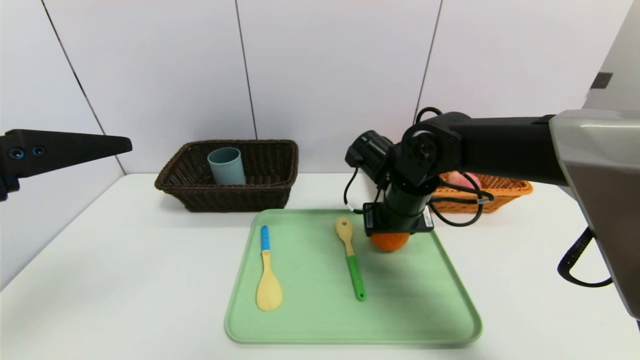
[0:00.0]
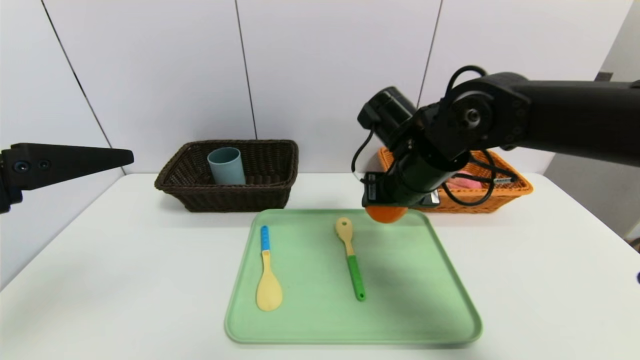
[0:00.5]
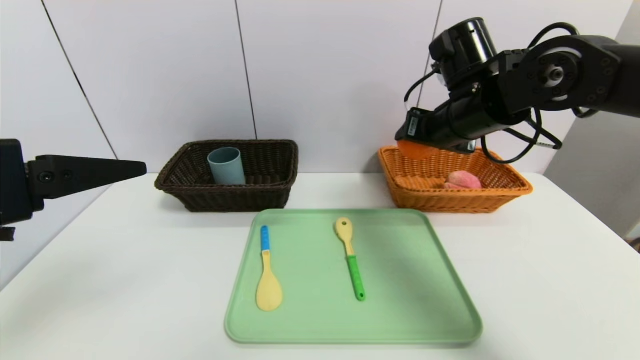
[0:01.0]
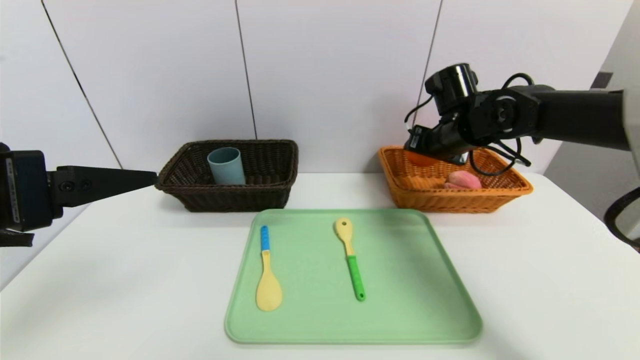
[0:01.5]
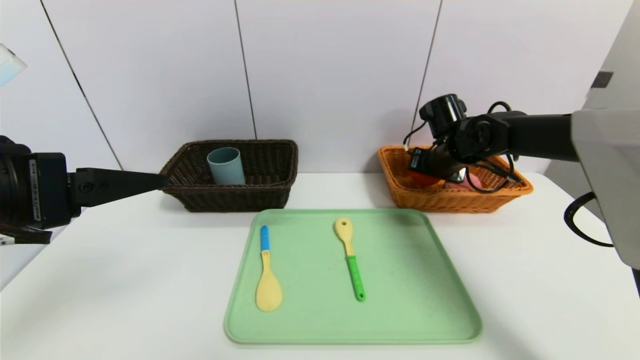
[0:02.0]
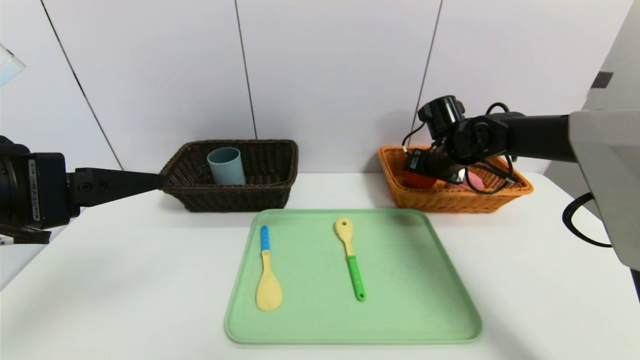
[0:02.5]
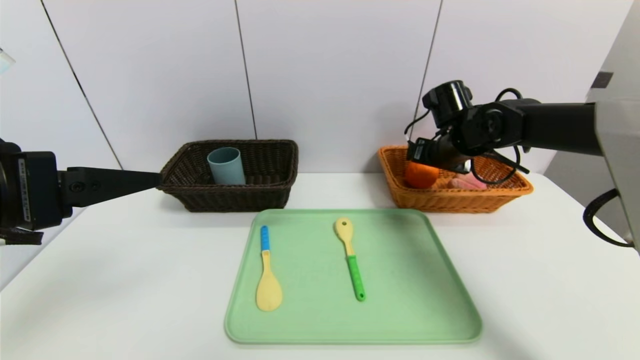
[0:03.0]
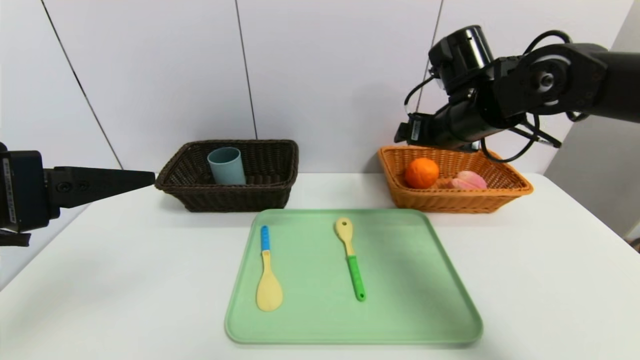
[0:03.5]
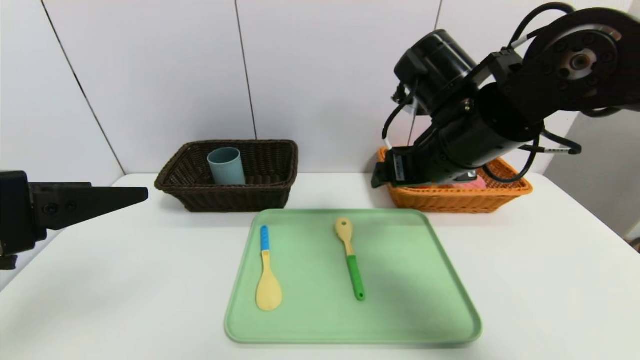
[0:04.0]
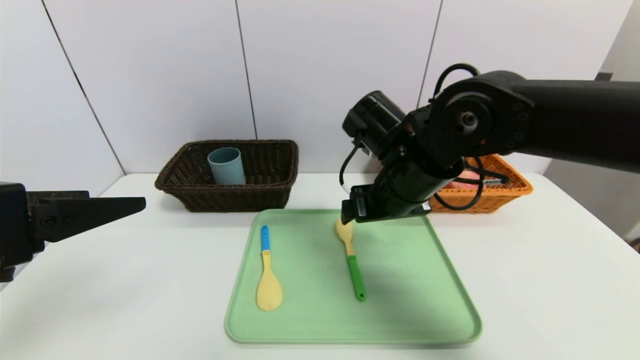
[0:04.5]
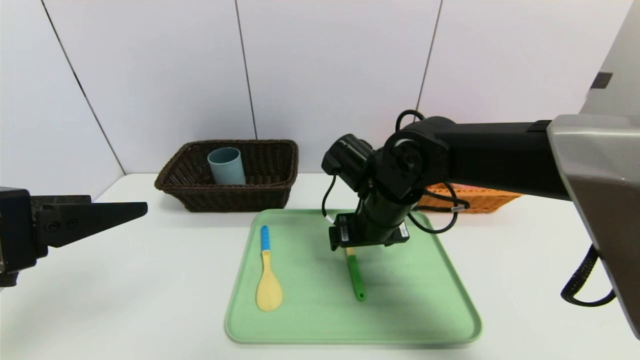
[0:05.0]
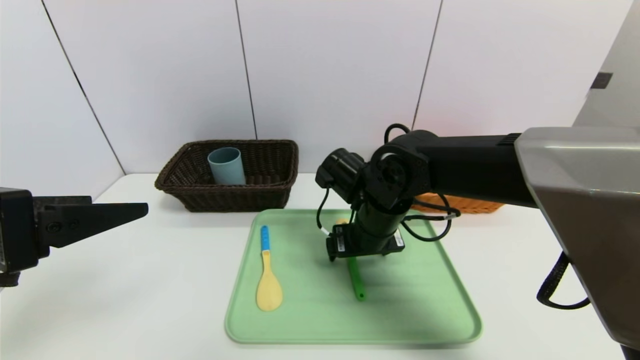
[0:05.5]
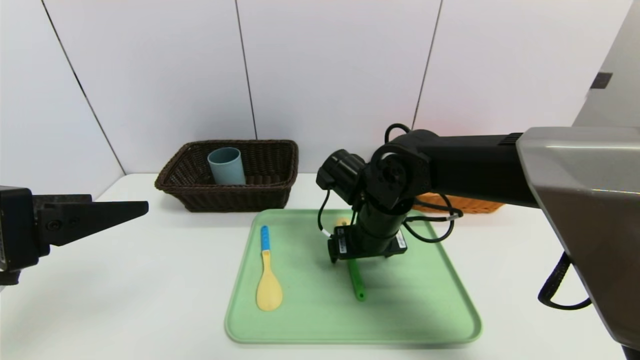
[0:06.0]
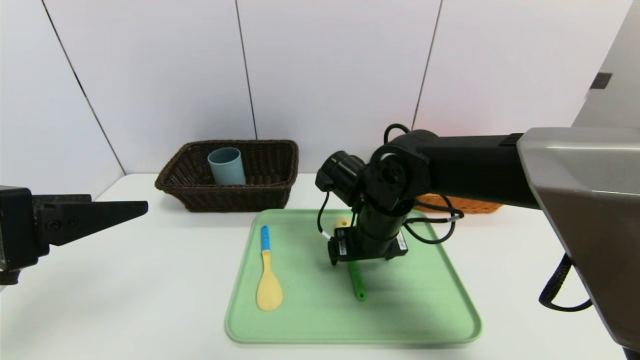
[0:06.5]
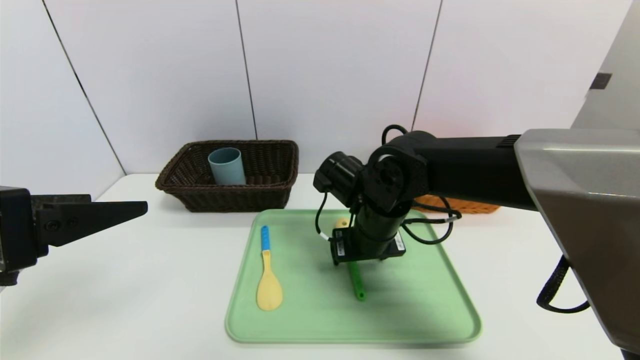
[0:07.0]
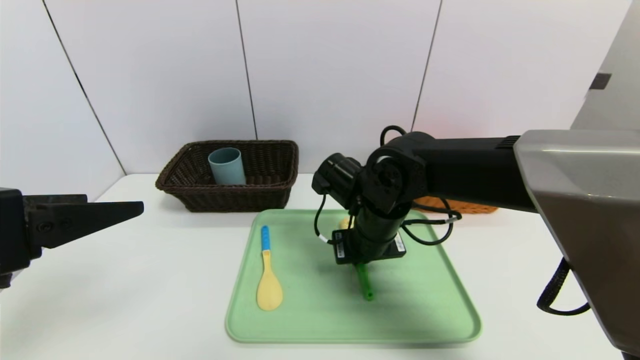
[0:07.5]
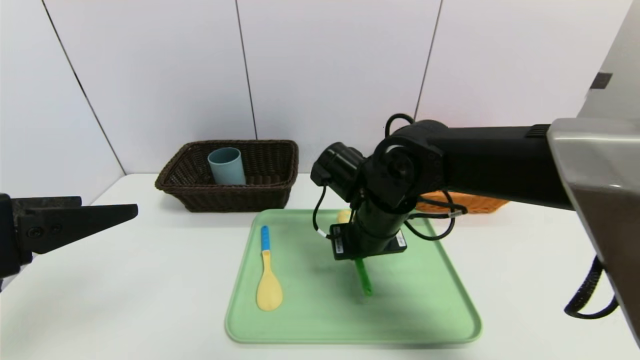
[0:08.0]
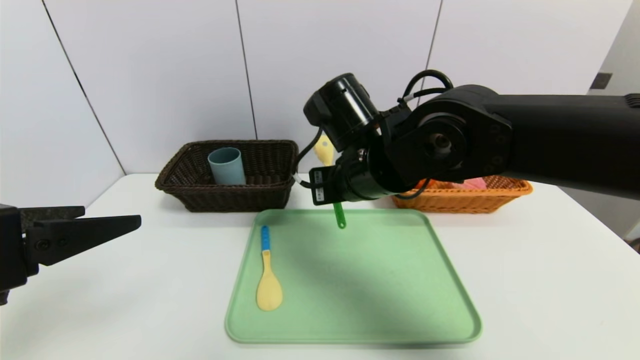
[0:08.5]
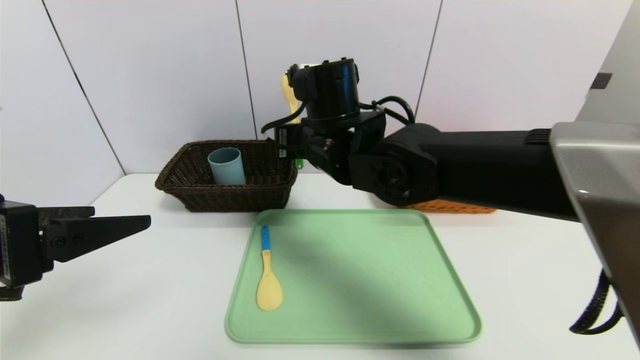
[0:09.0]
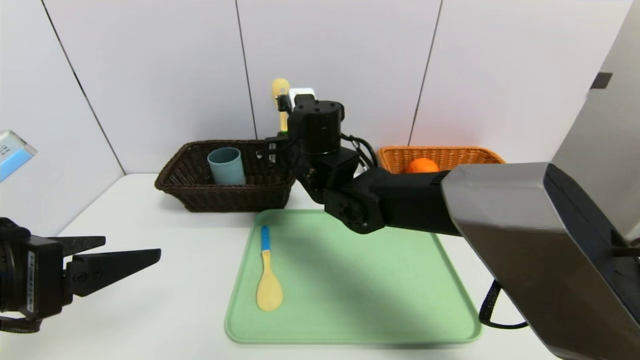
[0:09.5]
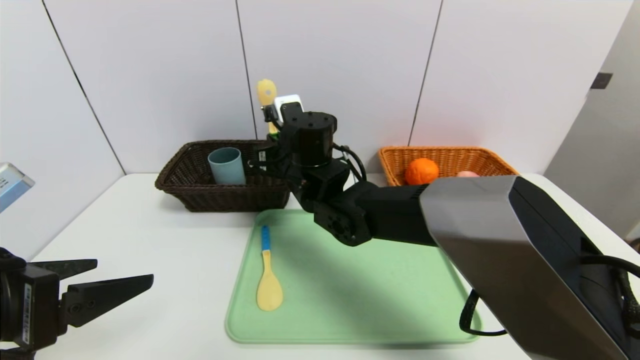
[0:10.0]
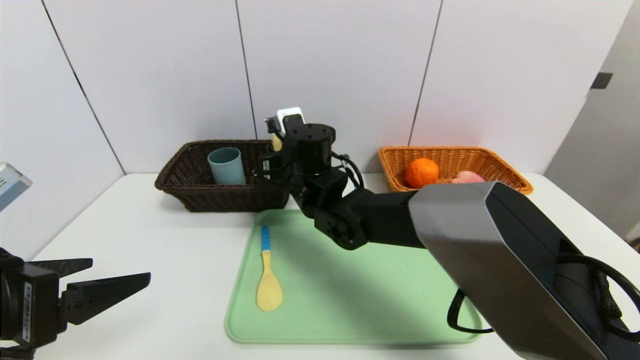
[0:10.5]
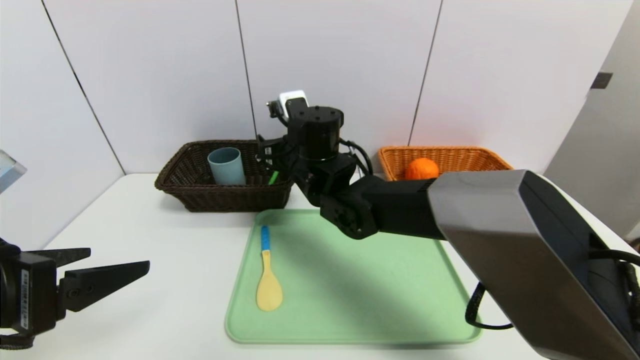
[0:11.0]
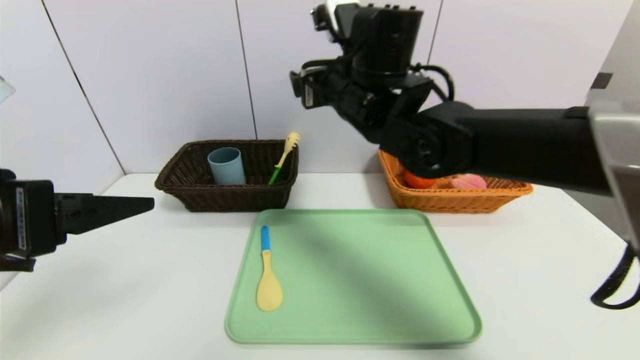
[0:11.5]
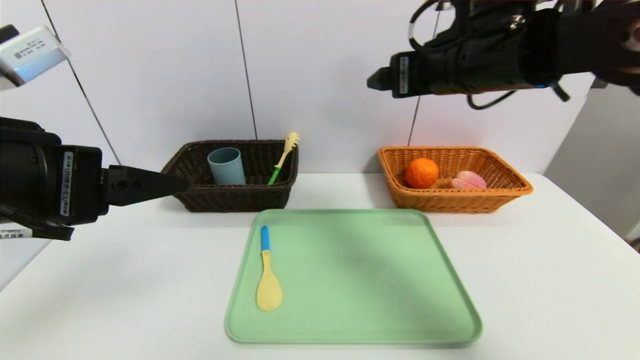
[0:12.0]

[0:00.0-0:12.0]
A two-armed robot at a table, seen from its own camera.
Task of the whole recording: place the food in the right basket with the right gripper, and place the non food items in the left basket with the left gripper.
Step, 0:00.0 to 0:03.0: Grasp the orange and put it in the right basket.
Step, 0:03.5 to 0:11.0: Grasp the back scratcher and put it in the left basket.
0:00.0 to 0:02.0: The right gripper travels to the right and forward by approximately 15 cm.
0:02.0 to 0:04.0: The right gripper is displaced backward, upward and to the left by some 20 cm.
0:04.0 to 0:06.0: The right gripper goes about 15 cm downward and to the left.
0:06.0 to 0:08.0: The right gripper closes its fingers.
0:08.0 to 0:10.0: The left gripper travels downward by some 5 cm. Meanwhile the right gripper is displaced to the left and forward by some 10 cm.
0:10.0 to 0:12.0: The left gripper travels upward by roughly 10 cm. Meanwhile the right gripper travels to the right and upward by about 25 cm, and opens up.

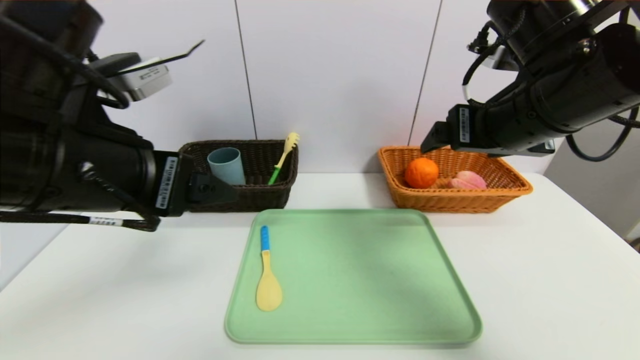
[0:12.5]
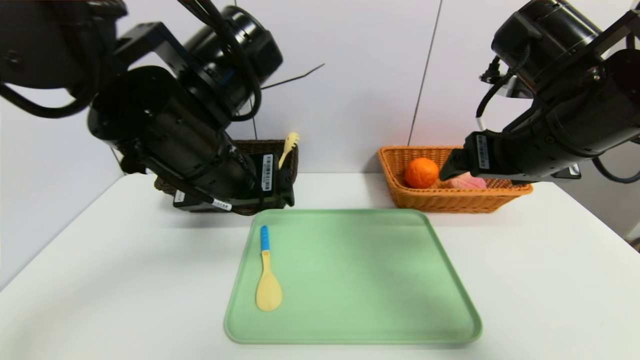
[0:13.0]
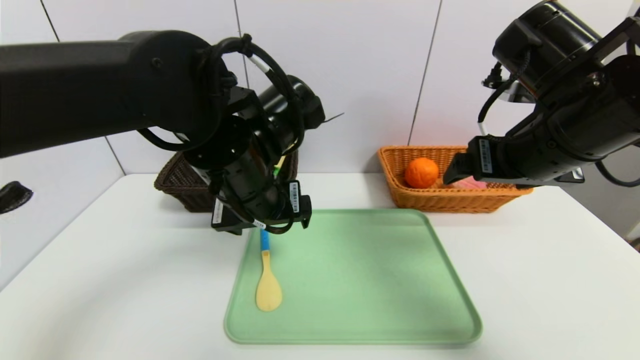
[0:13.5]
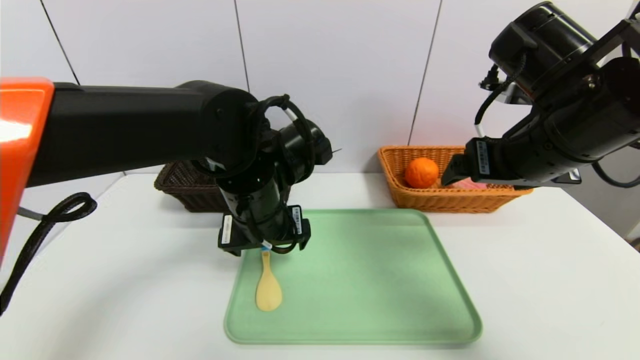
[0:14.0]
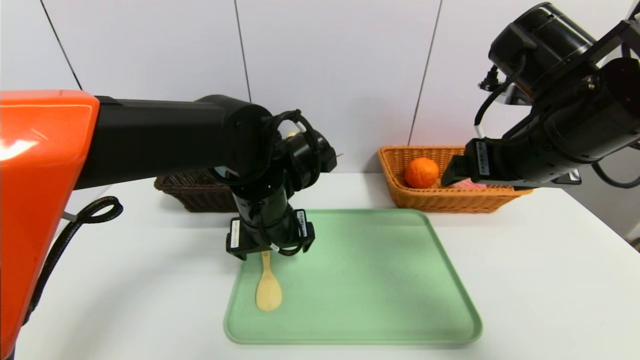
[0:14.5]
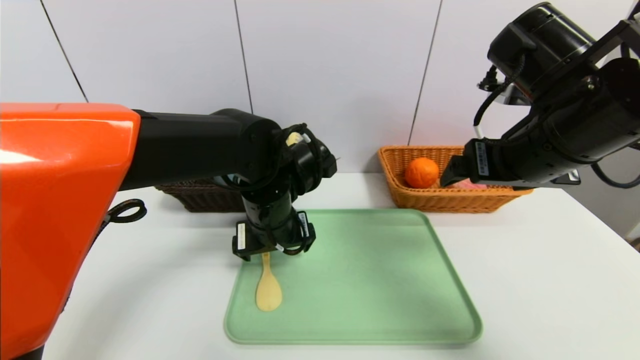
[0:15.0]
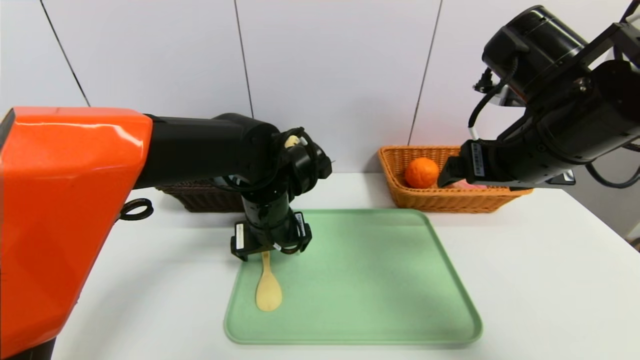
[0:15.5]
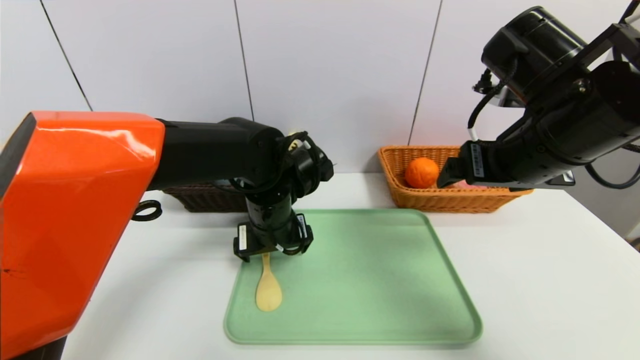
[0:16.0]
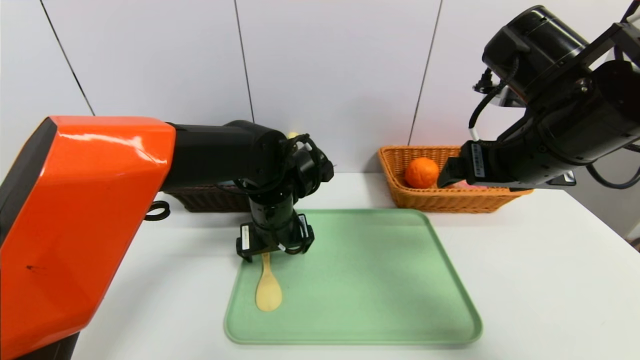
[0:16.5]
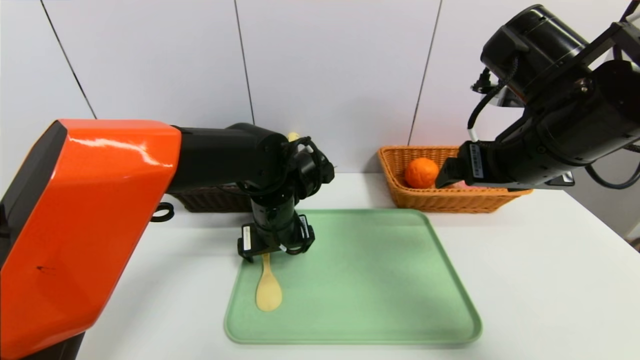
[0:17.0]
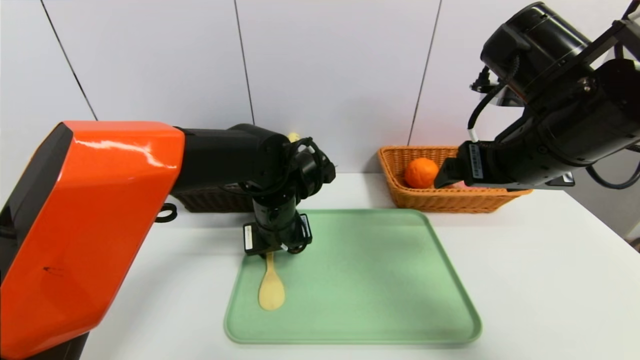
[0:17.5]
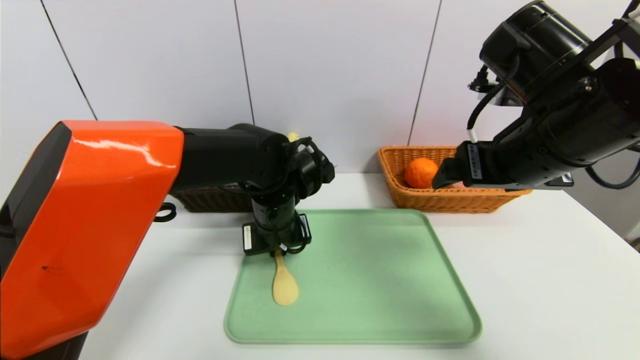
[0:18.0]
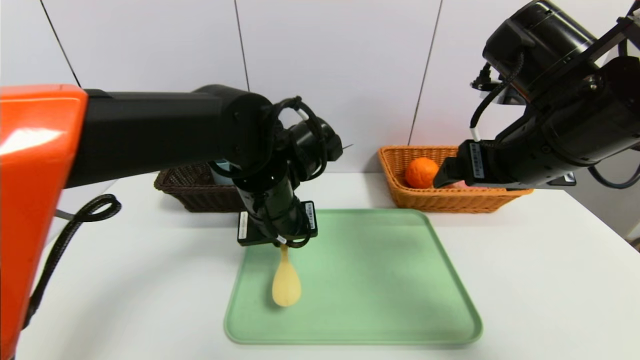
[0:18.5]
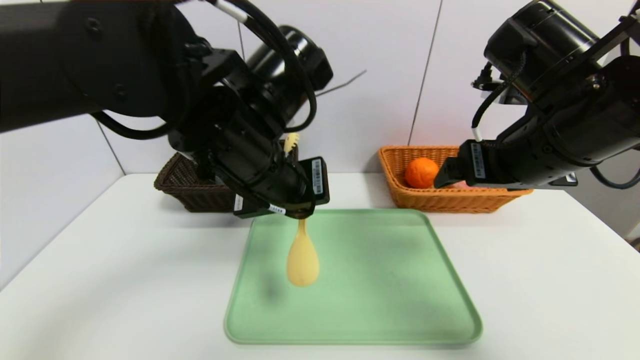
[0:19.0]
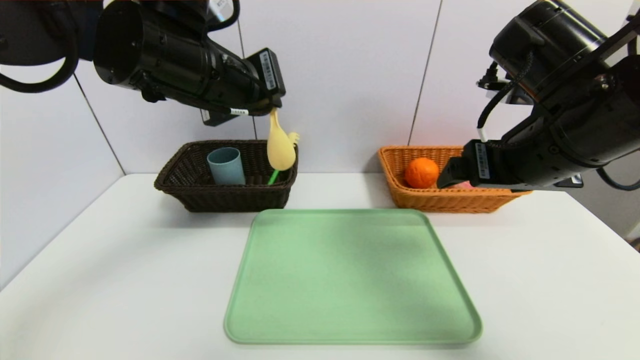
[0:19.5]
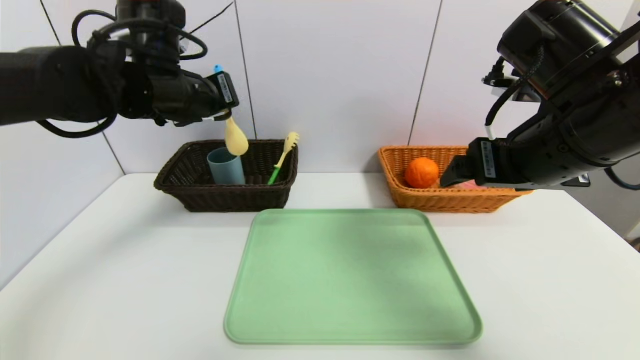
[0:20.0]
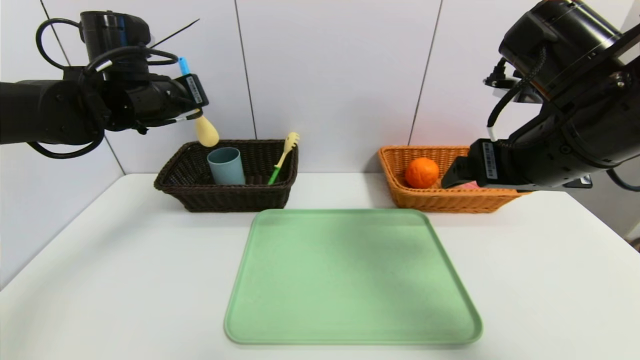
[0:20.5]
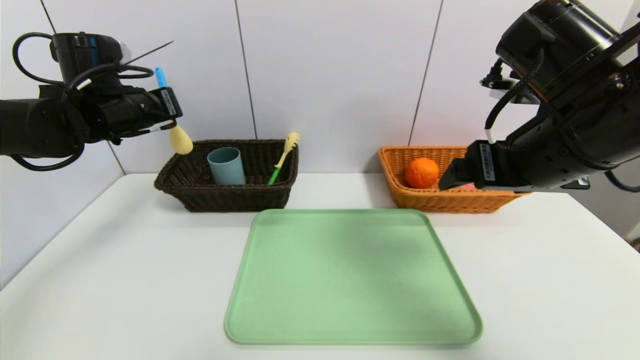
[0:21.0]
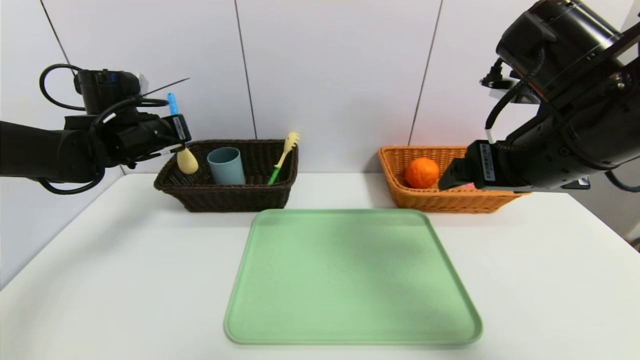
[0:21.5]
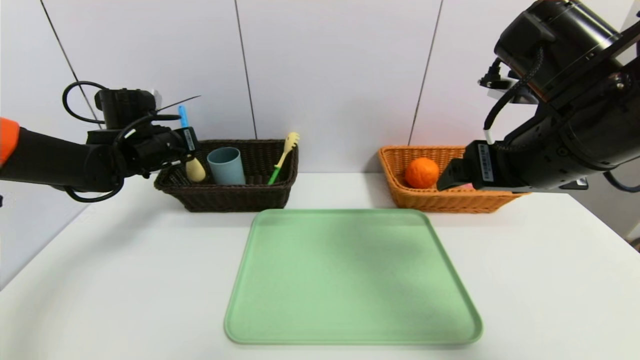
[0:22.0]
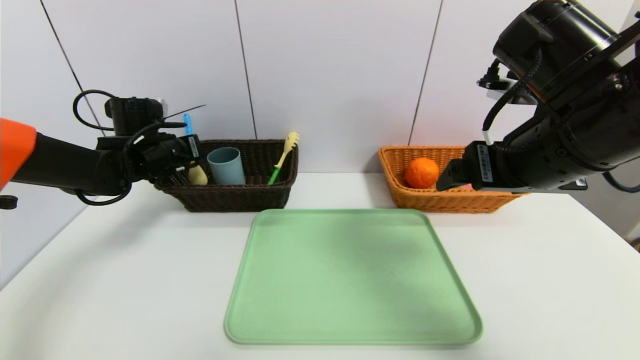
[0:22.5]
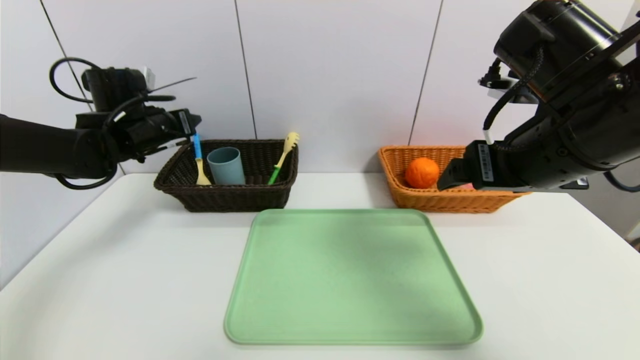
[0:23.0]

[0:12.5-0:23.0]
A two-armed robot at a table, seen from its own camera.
Task of the whole recording: place the food in the right basket with the right gripper, and place the non food items in the left basket with the left gripper.
Step, 0:12.5 to 0:23.0: Grasp the spoon and put it in the left basket.
0:12.5 to 0:14.5: The left gripper moves to the right, downward and forward, approximately 20 cm.
0:14.5 to 0:16.5: The left gripper ends up about 5 cm from where it was.
0:16.5 to 0:19.0: The left gripper travels upward and backward by roughly 15 cm, and closes up.
0:19.0 to 0:21.0: The left gripper shifts roughly 25 cm to the left and forward.
0:21.0 to 0:23.0: The left gripper reaches some 10 cm downward, then returns, and opens up.
